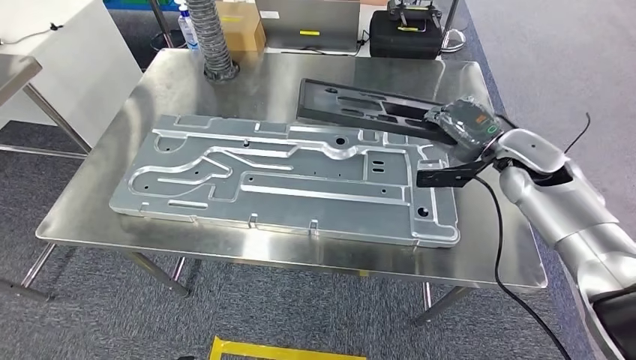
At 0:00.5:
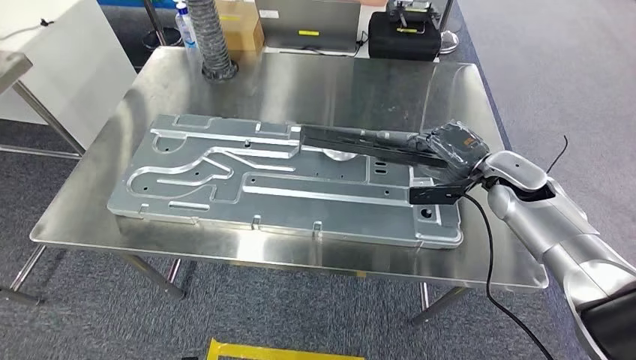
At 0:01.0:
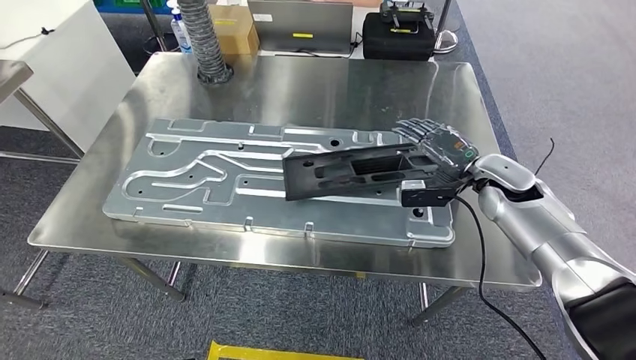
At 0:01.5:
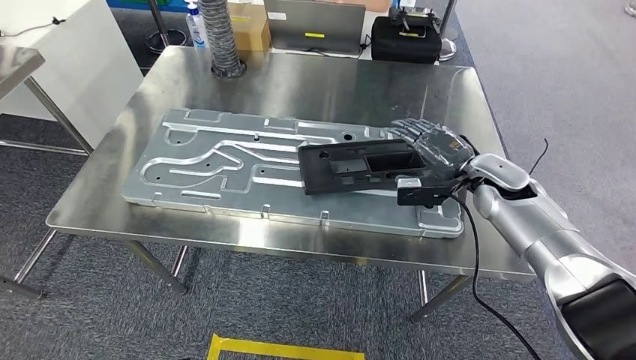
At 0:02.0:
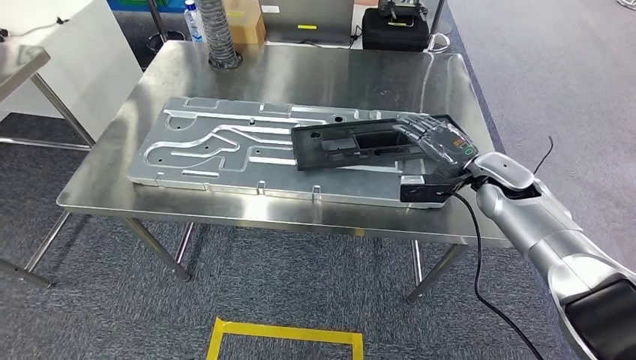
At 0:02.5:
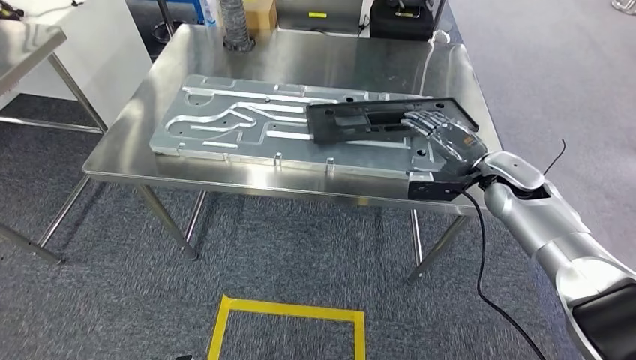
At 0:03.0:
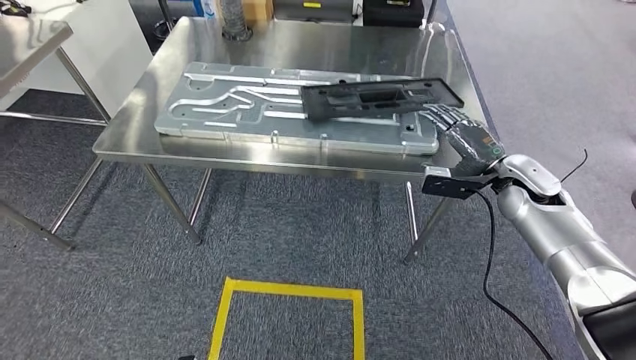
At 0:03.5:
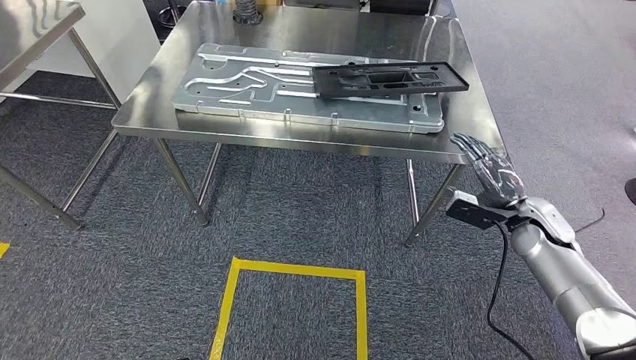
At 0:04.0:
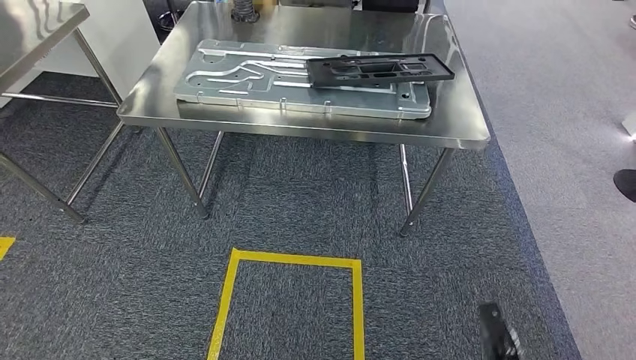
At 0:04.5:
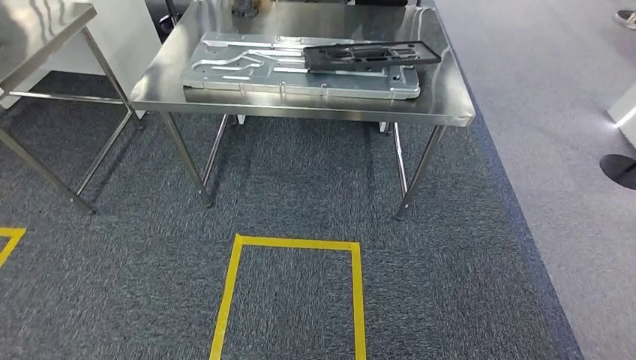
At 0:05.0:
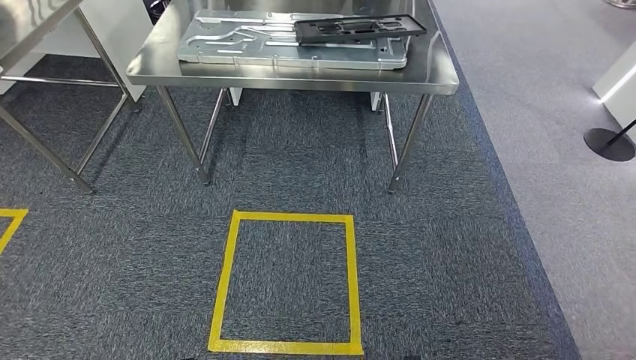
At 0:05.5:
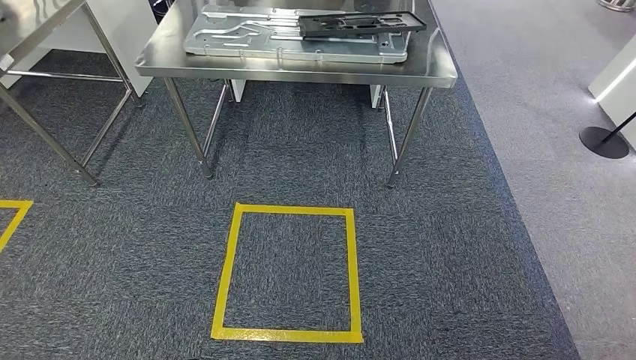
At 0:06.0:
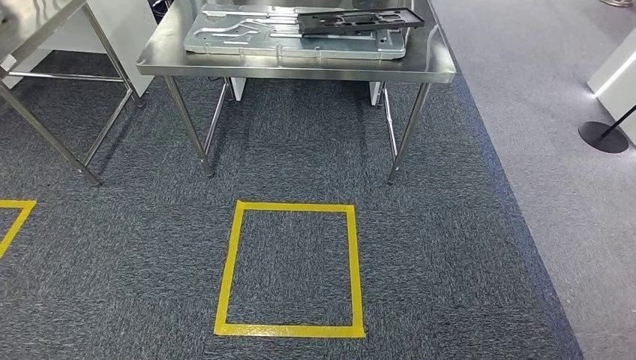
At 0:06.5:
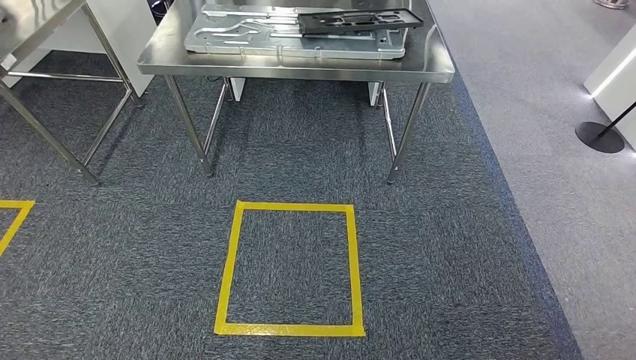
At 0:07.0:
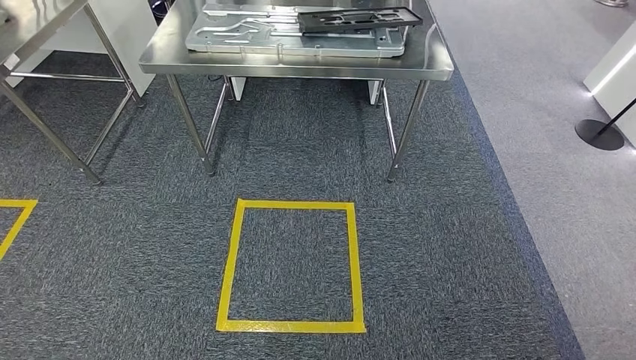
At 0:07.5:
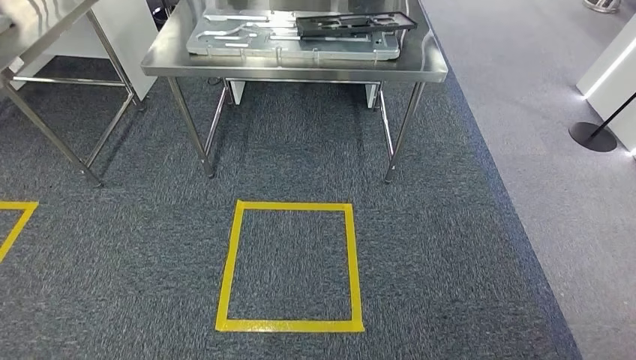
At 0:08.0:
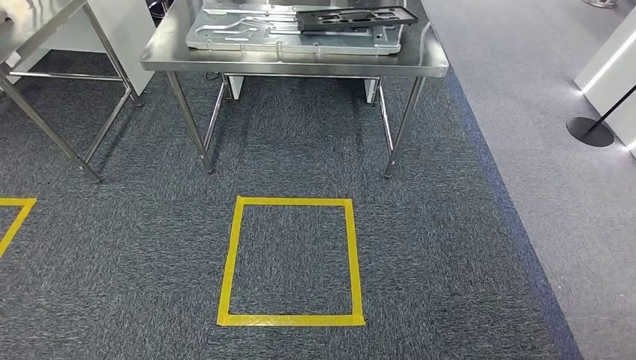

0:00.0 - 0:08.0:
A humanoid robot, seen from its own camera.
Step, 0:02.5 - 0:08.0: Move to the initial position of the shelf.
